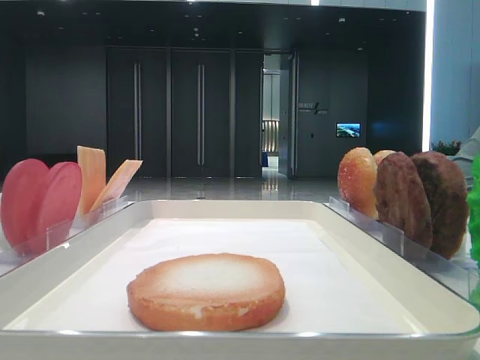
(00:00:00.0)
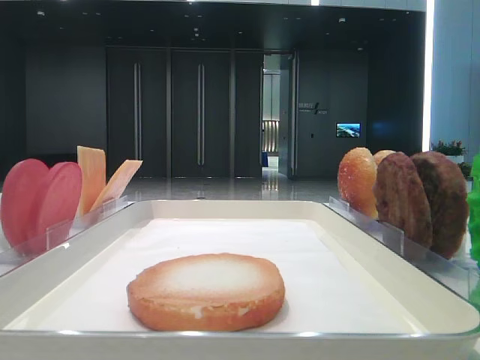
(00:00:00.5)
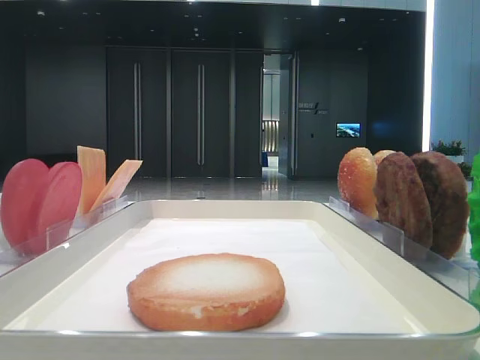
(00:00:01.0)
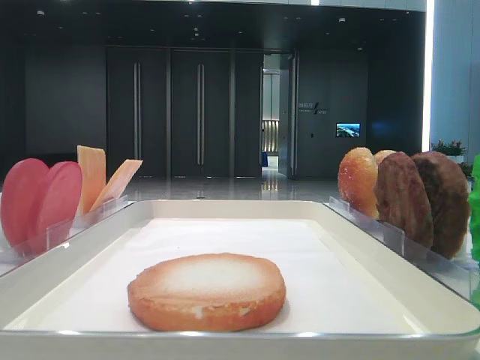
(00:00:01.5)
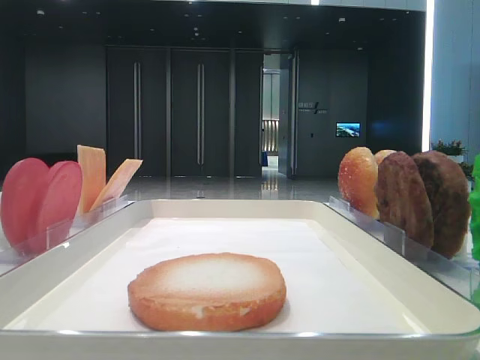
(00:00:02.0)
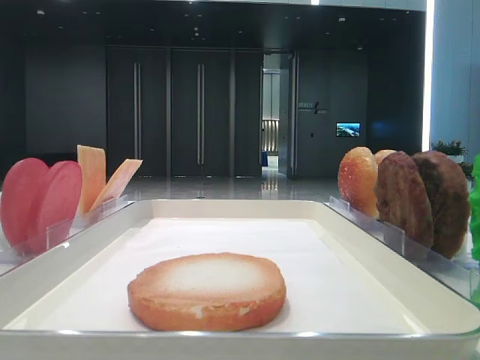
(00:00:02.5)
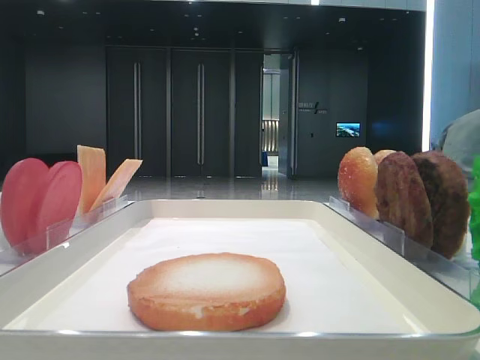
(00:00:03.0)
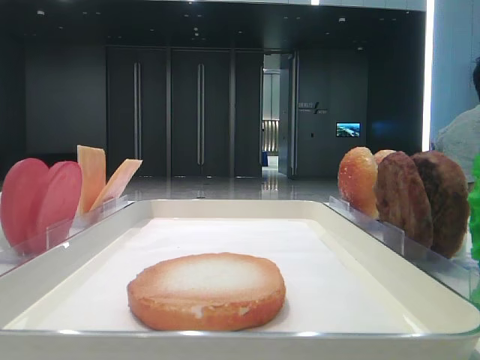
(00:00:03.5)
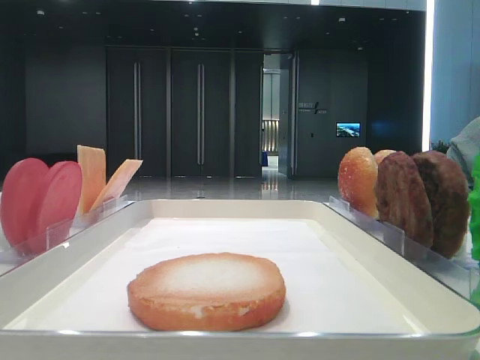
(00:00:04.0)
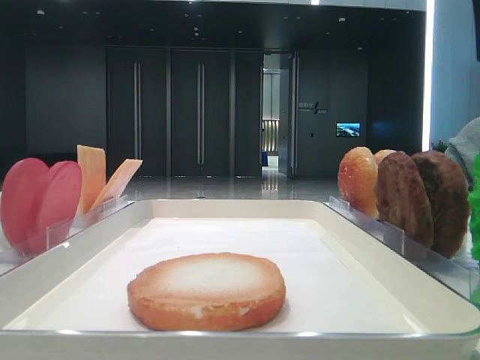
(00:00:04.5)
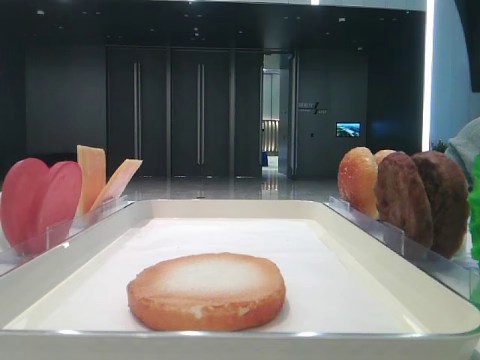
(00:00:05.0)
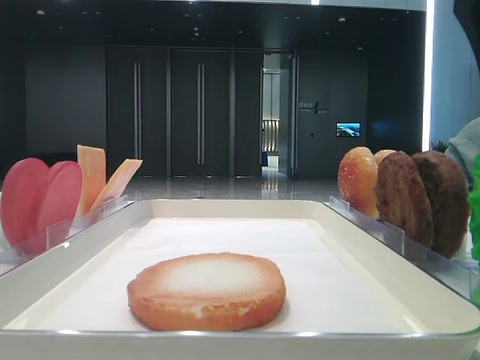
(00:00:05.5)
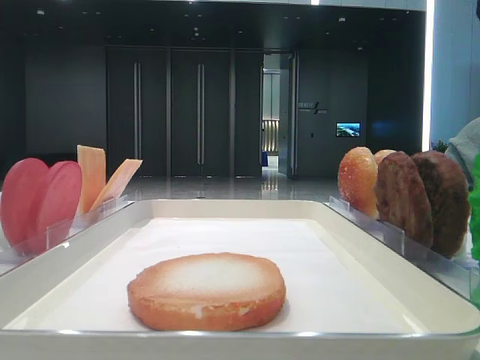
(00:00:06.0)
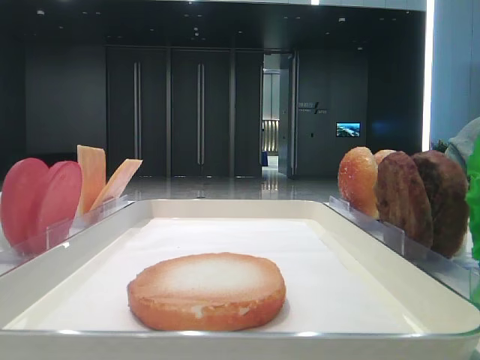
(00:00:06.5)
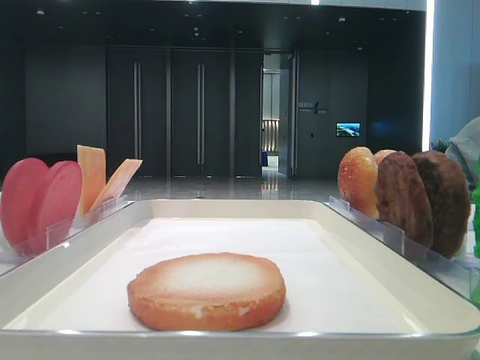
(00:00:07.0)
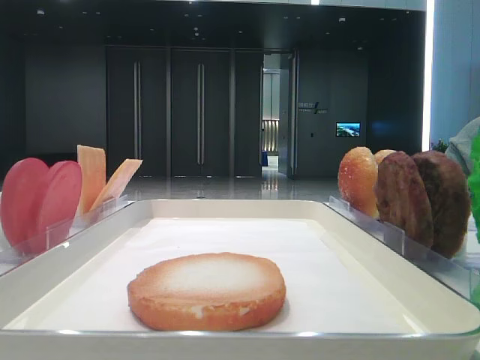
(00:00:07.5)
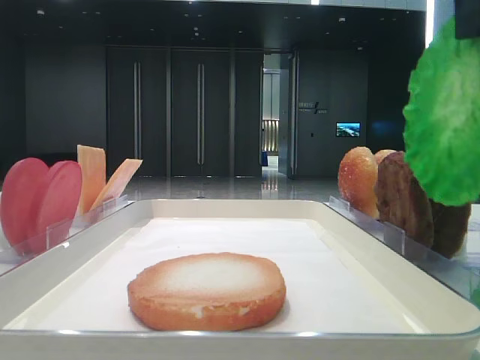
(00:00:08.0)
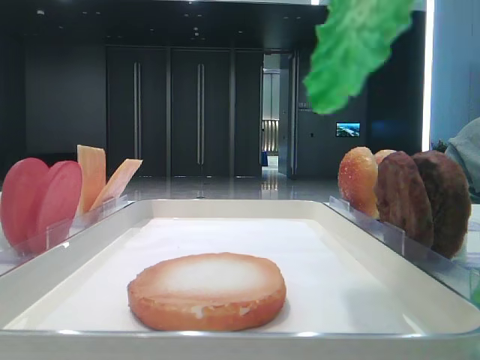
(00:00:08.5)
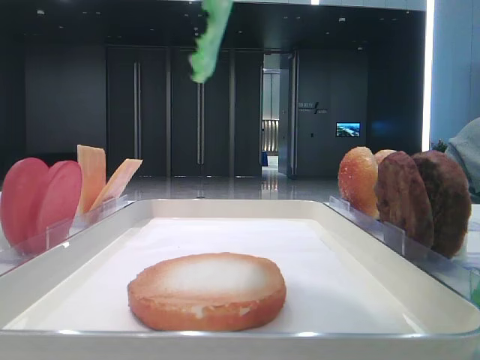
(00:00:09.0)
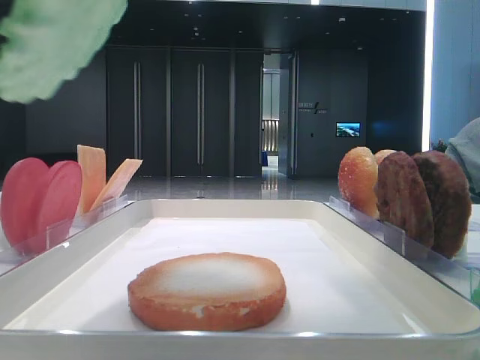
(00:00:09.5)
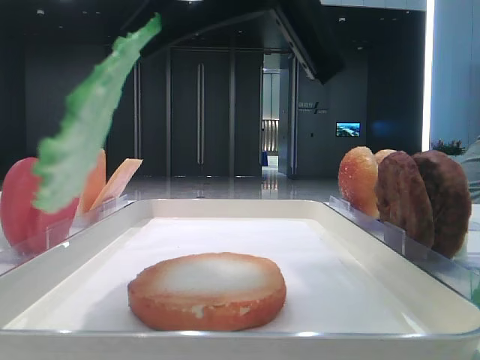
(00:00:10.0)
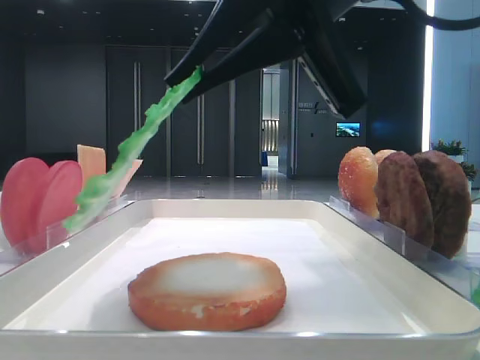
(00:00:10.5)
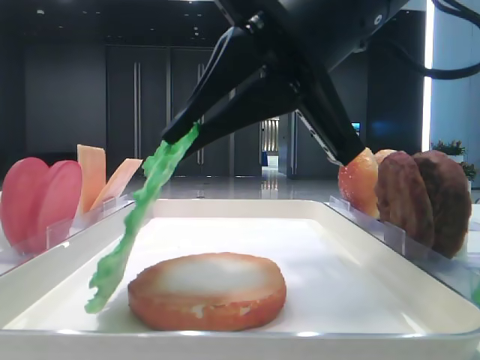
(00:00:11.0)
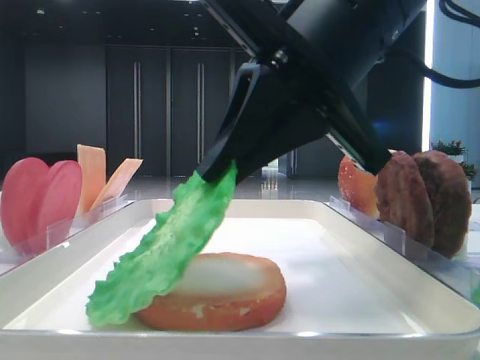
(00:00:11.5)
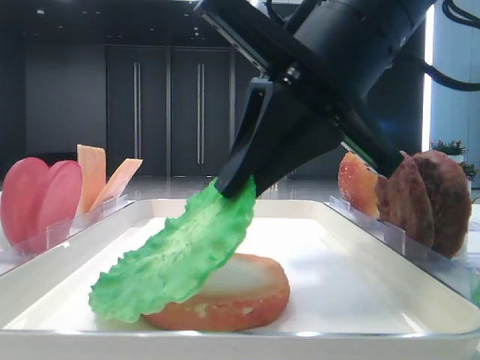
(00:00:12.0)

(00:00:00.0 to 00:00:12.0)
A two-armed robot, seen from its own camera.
00:00:06.0 - 00:00:08.0: The right gripper heads upward, covering about 5 cm.
00:00:08.0 - 00:00:10.0: The right gripper travels to the left and downward by roughly 10 cm.
00:00:10.0 - 00:00:12.0: The right gripper shifts about 5 cm downward.

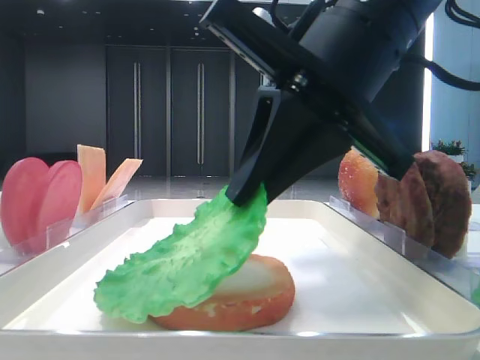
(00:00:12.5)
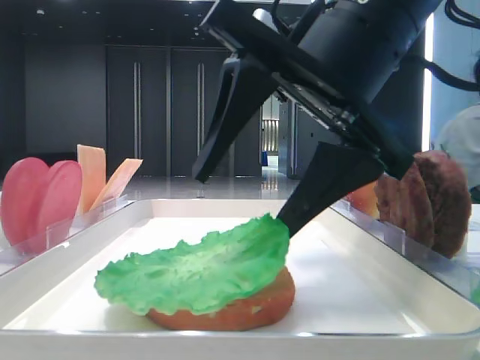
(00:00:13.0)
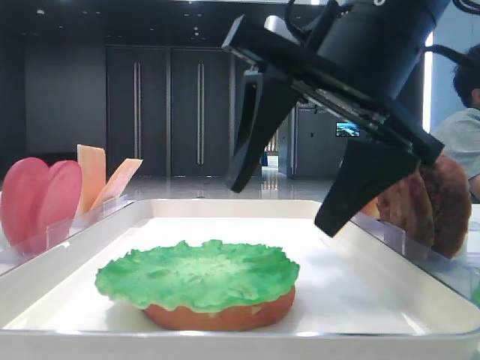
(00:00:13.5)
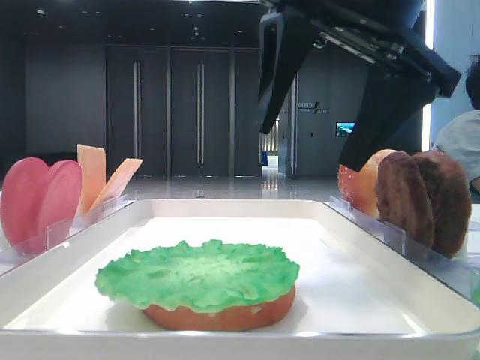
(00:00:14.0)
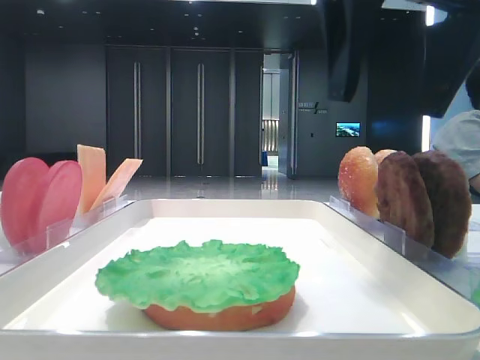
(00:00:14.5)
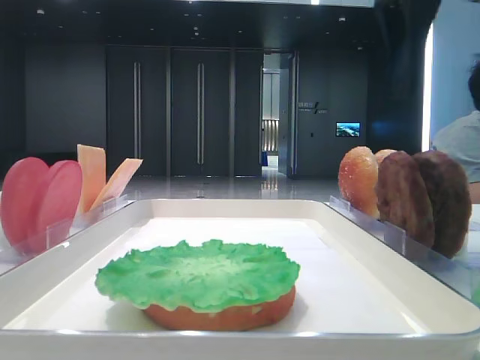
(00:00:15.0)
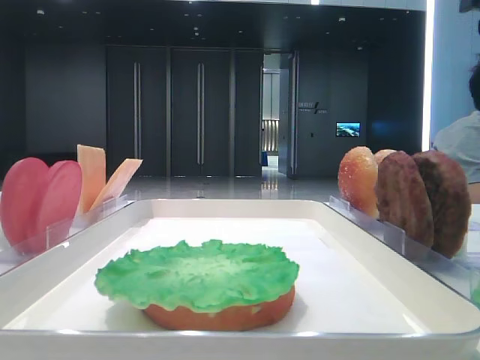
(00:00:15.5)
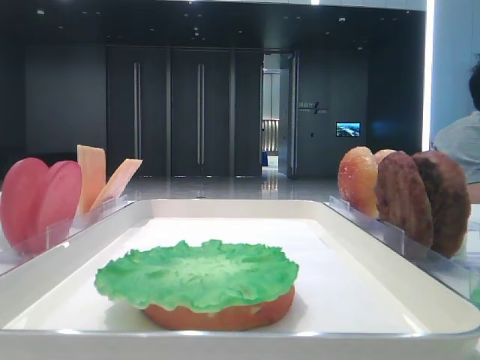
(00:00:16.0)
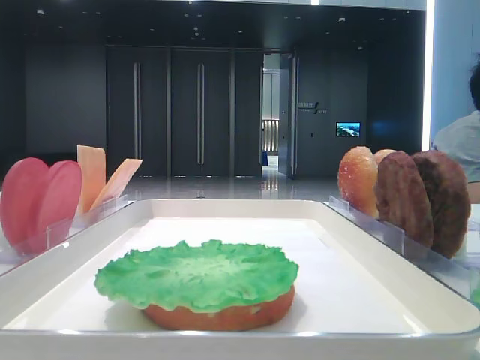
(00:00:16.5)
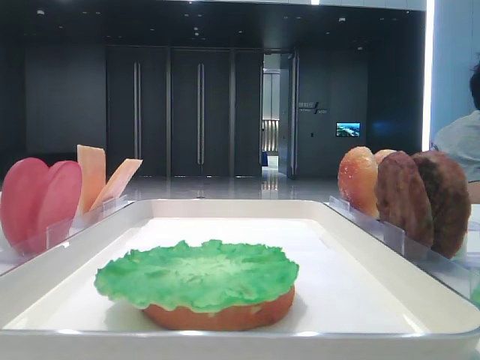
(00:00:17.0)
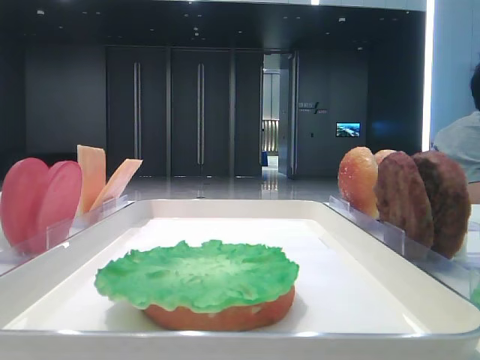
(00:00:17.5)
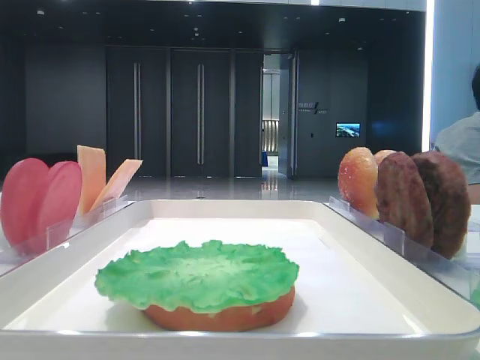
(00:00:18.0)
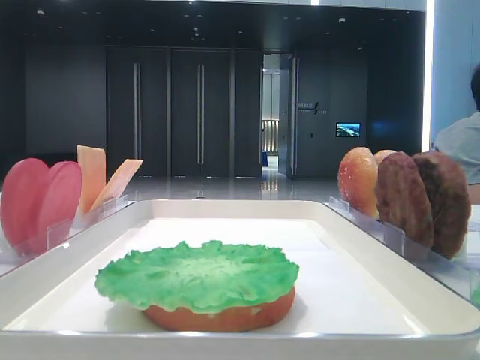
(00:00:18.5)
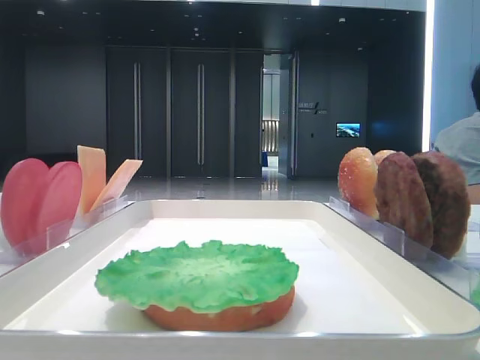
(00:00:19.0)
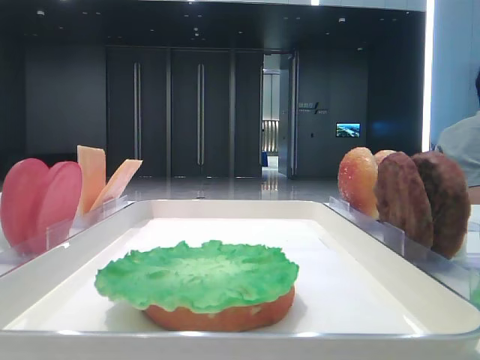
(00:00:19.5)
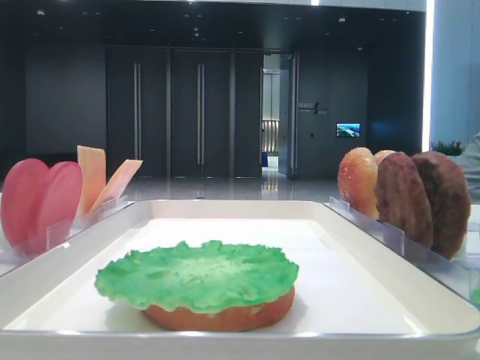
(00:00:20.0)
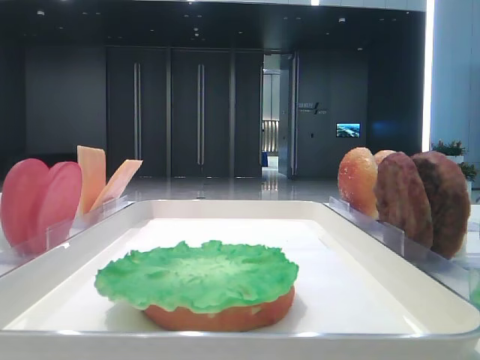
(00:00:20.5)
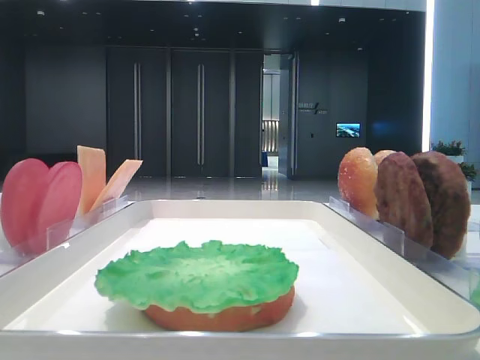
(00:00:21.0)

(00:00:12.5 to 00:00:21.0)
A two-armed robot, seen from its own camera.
00:00:12.5 - 00:00:14.5: The right gripper is displaced upward by about 10 cm, and opens its fingers.
00:00:14.5 - 00:00:16.5: The right gripper is displaced to the right by approximately 15 cm.
00:00:19.0 - 00:00:21.0: Neither gripper changes place.

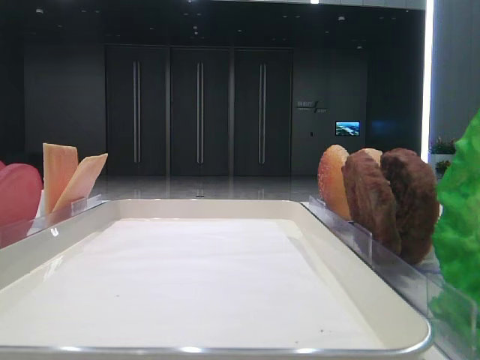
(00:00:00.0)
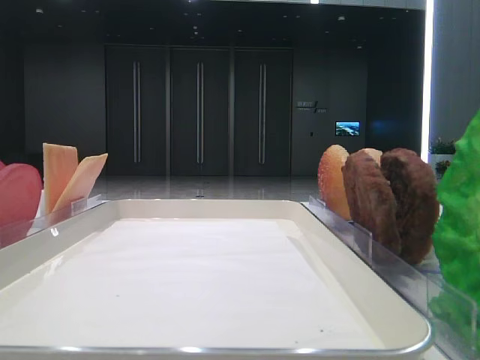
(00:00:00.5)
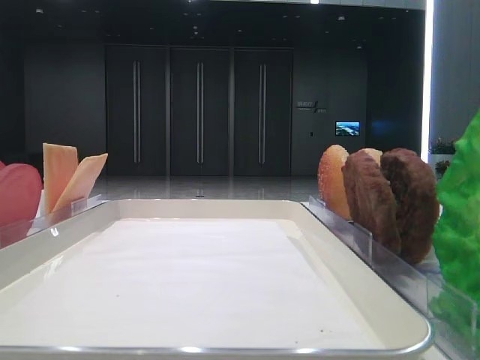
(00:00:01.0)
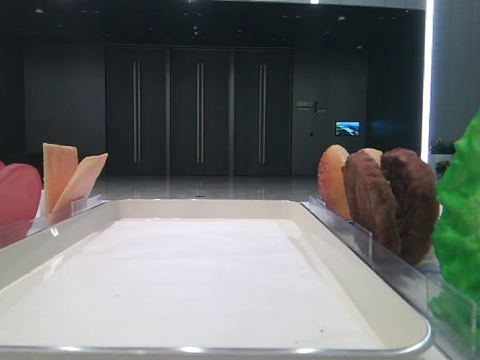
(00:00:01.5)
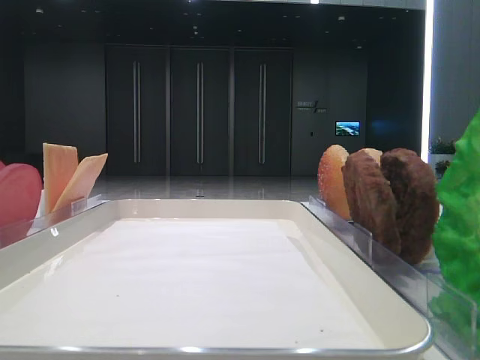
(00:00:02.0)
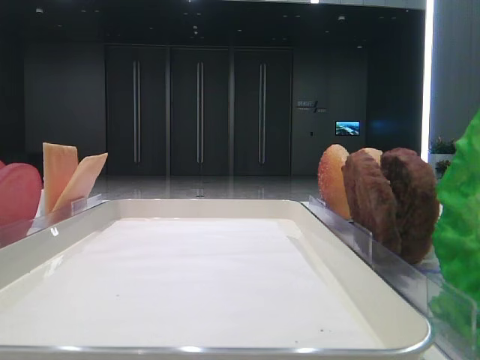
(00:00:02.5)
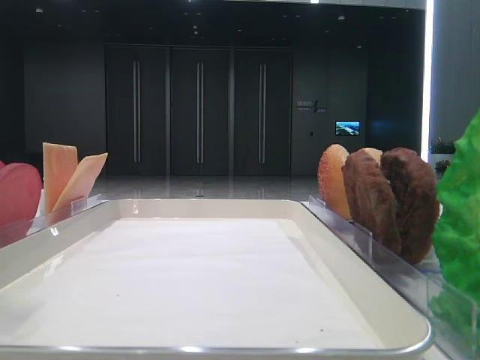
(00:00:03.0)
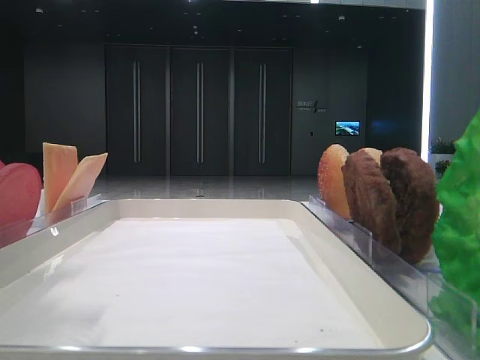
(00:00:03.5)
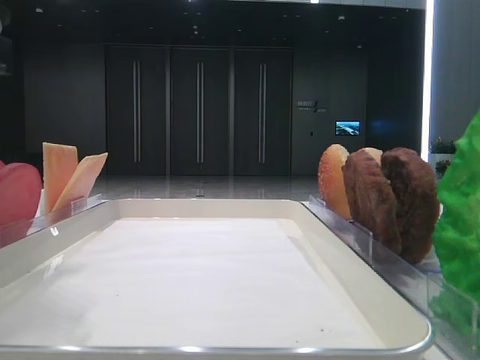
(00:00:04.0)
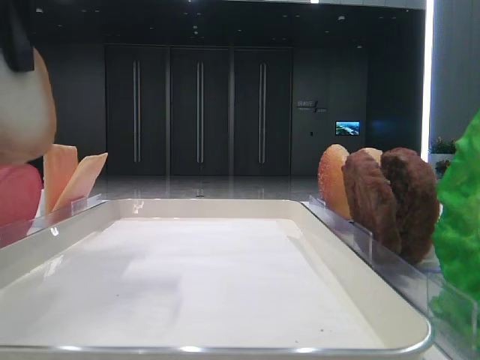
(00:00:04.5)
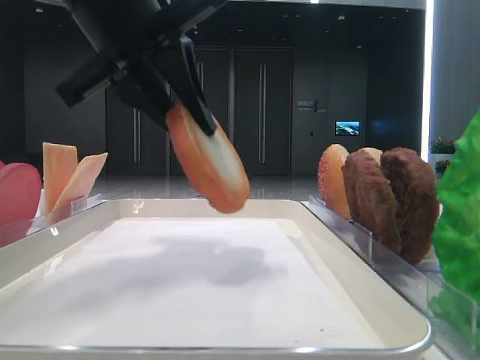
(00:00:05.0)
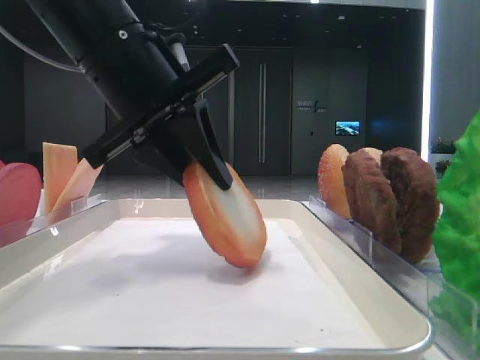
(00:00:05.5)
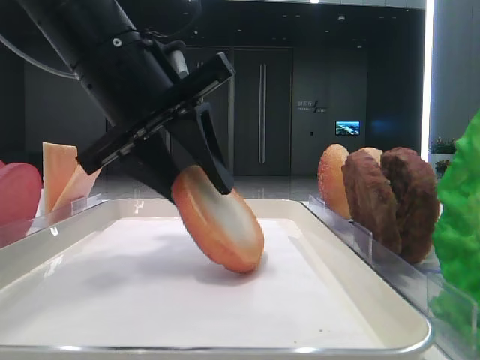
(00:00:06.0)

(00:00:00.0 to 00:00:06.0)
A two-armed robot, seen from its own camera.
Step, 00:00:00.0 - 00:00:03.5: Pick up the bottom bread with the left hand.
00:00:02.0 - 00:00:04.0: The left gripper moves forward, to the right and downward, some 20 cm, and closes.
00:00:04.0 - 00:00:06.0: The left gripper heads forward and to the right, covering some 15 cm, and moves approximately 10 cm upward and comes back.
